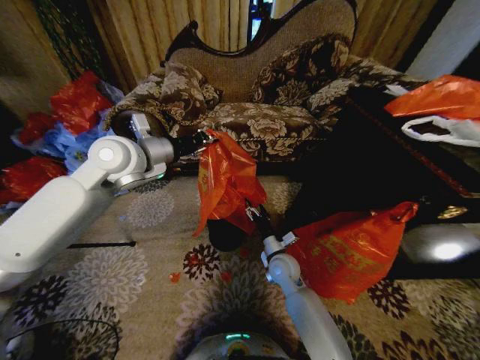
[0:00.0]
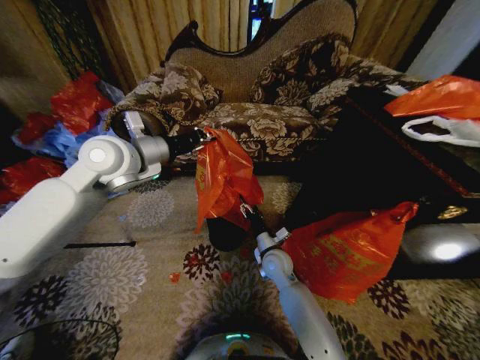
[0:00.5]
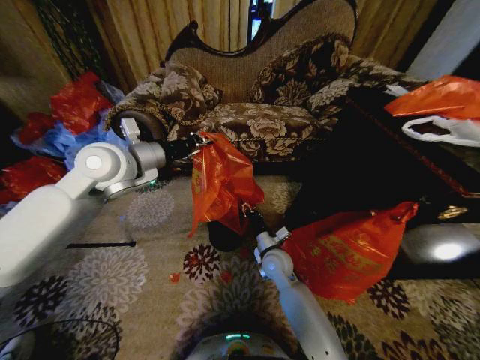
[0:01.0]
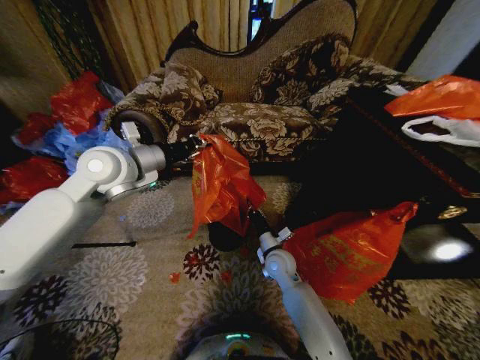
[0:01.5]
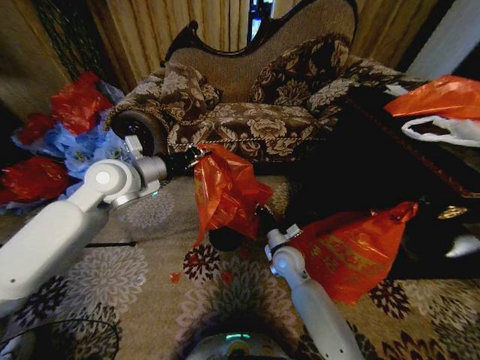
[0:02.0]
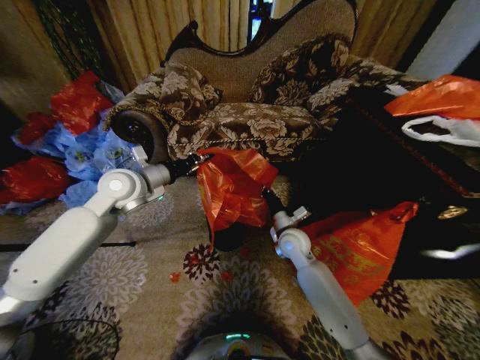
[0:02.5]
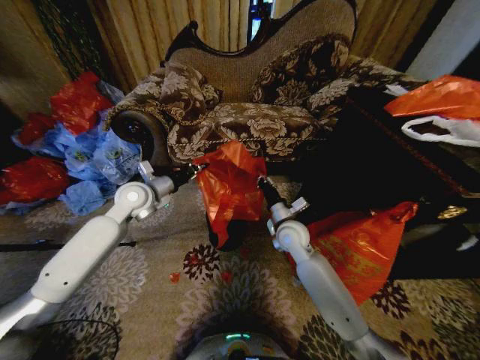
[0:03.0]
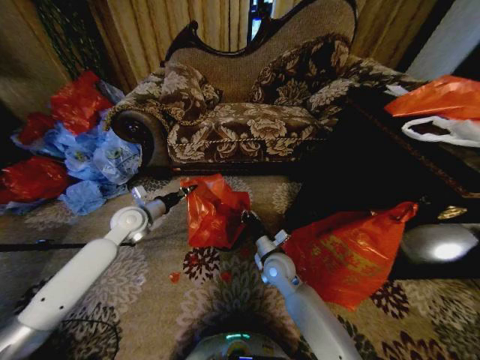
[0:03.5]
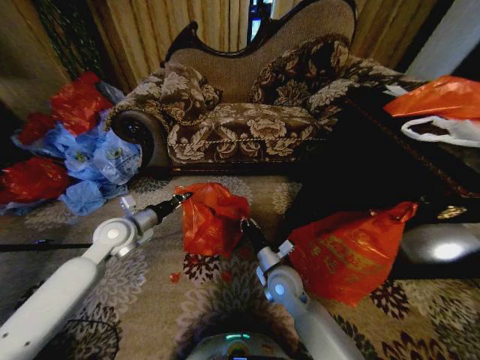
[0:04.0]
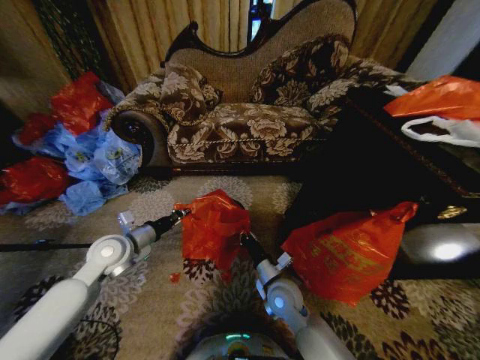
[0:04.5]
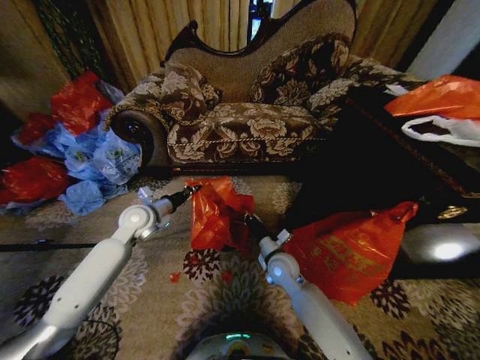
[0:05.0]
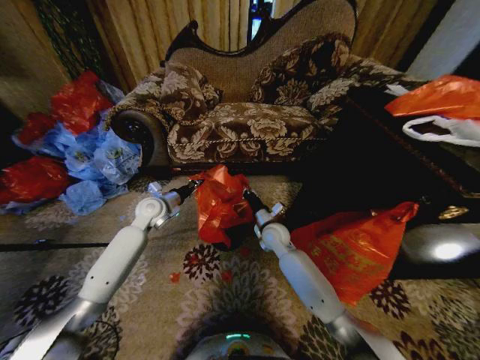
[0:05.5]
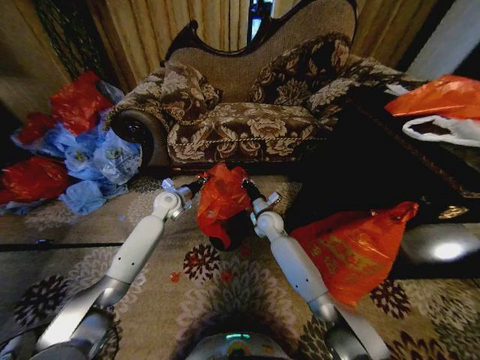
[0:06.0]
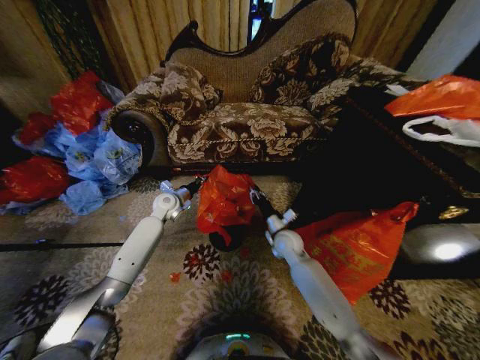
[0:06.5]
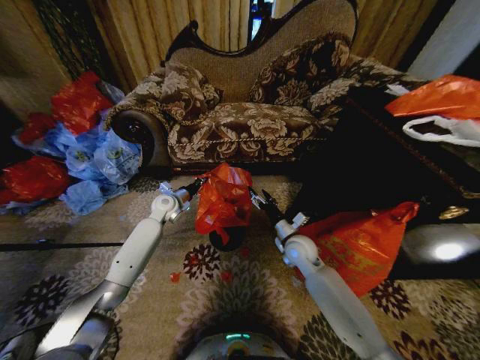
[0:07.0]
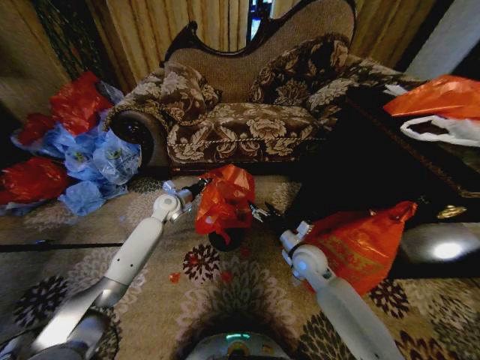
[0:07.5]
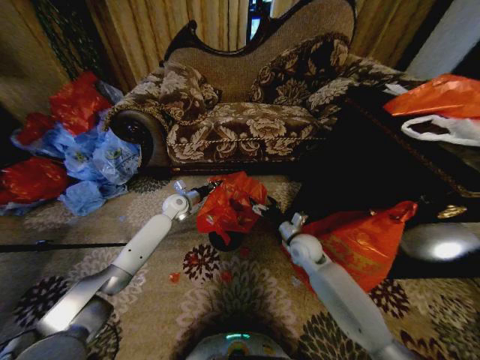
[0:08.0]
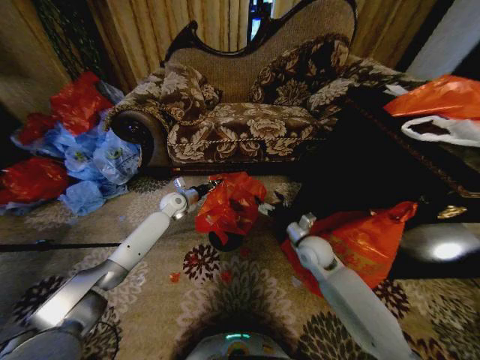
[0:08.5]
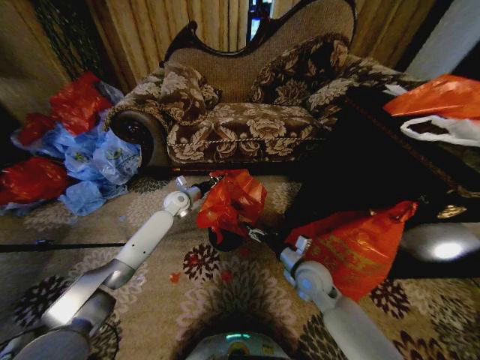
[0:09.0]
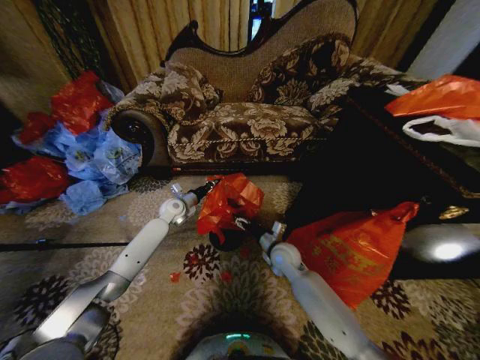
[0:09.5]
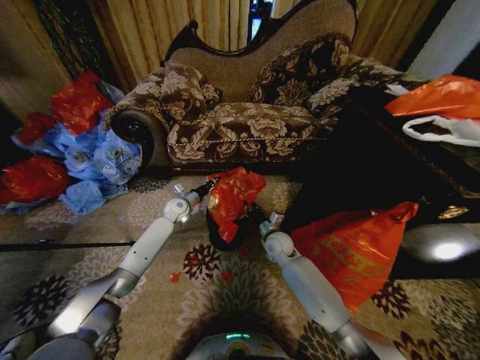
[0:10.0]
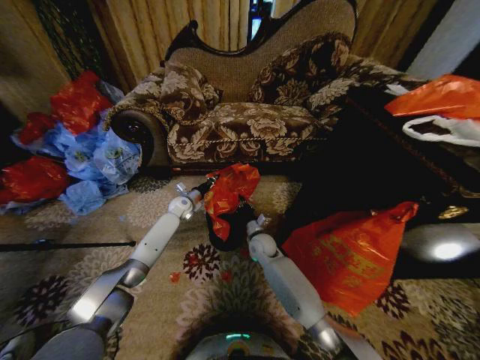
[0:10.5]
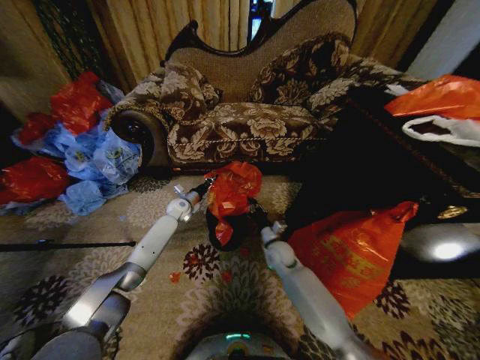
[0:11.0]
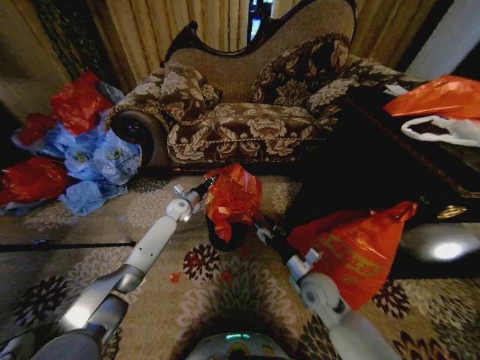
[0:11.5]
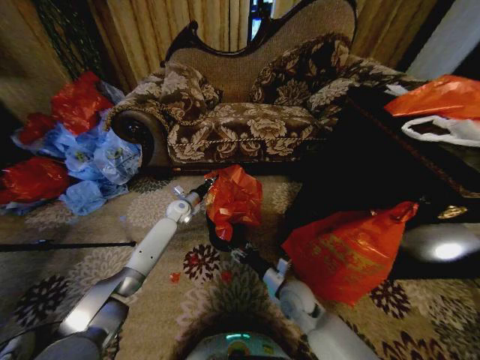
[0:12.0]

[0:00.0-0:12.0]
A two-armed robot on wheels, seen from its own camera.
Task of the whole recording: Place a garbage bag over the trash bin.
0:00.0 to 0:02.0: The left gripper shifts by some 5 cm. The right gripper closes.
0:02.0 to 0:04.0: The right gripper travels backward by roughly 5 cm; the left gripper moves downward, roughly 15 cm.
0:04.0 to 0:06.0: The grippers both shift forward by about 20 cm.
0:06.0 to 0:08.0: The right gripper goes some 15 cm to the right and backward, and opens up.
0:08.0 to 0:10.0: The right gripper is displaced to the left by approximately 5 cm, travels backward and back again, some 10 cm each way, and closes its fingers.
0:10.0 to 0:12.0: The right gripper is displaced backward by roughly 15 cm.

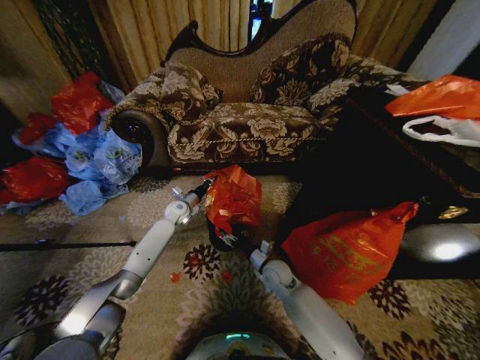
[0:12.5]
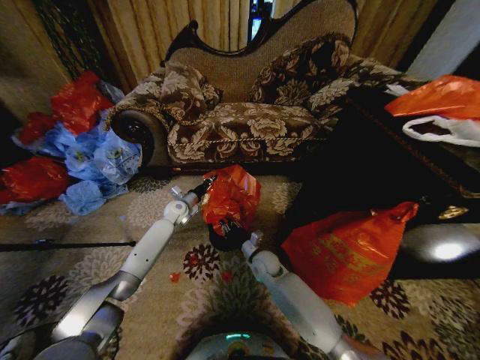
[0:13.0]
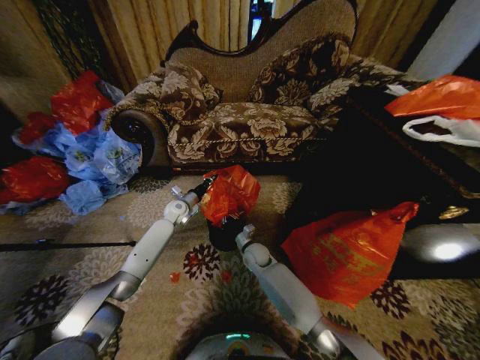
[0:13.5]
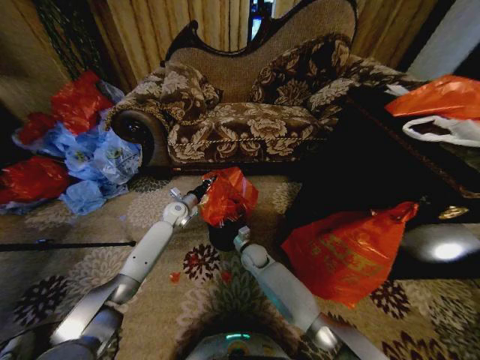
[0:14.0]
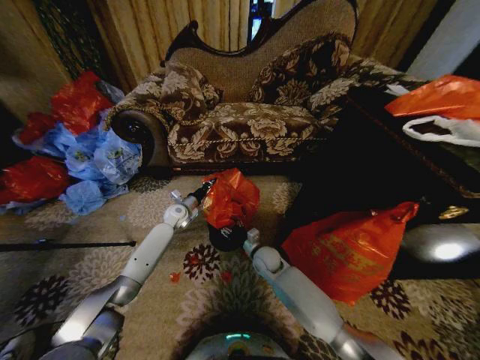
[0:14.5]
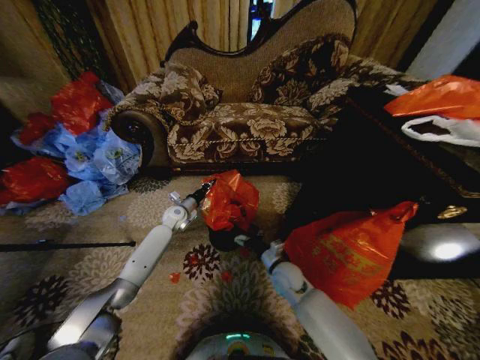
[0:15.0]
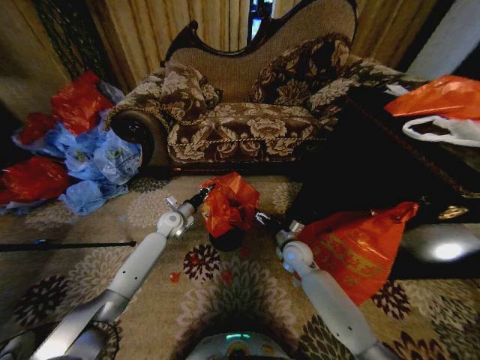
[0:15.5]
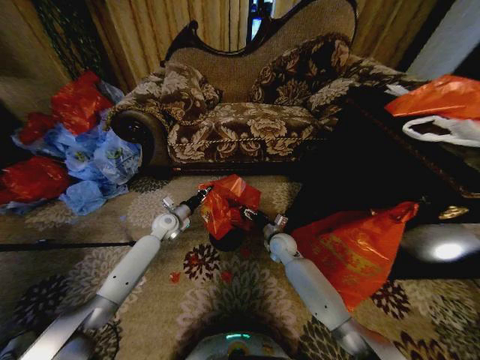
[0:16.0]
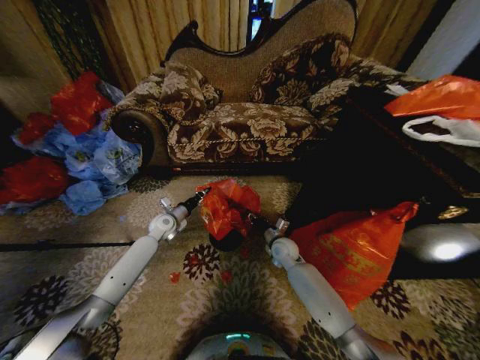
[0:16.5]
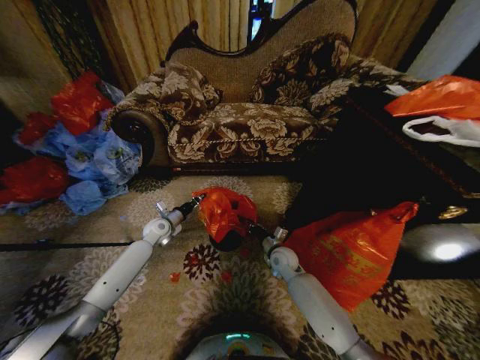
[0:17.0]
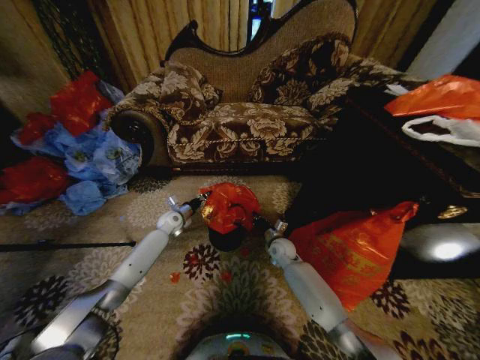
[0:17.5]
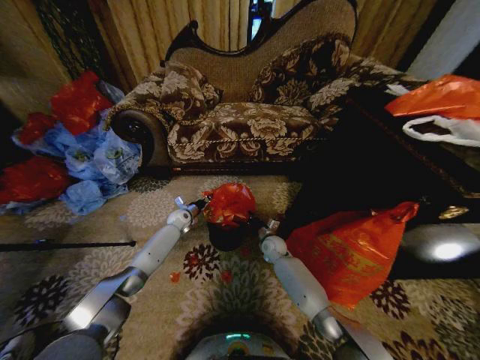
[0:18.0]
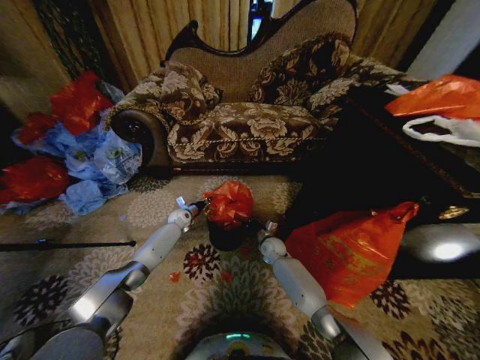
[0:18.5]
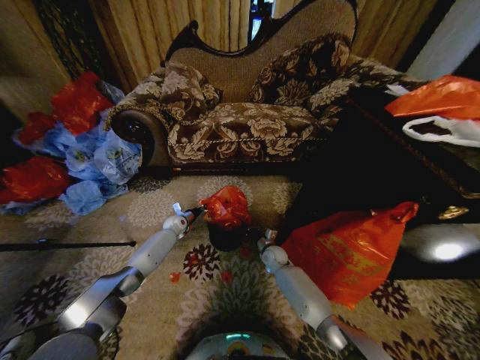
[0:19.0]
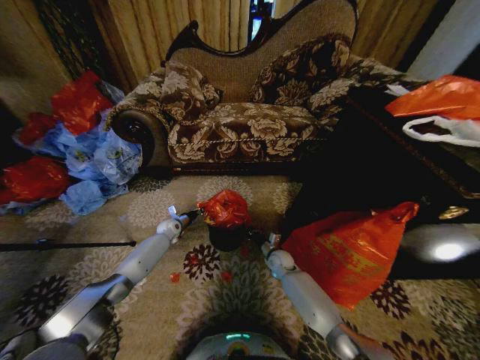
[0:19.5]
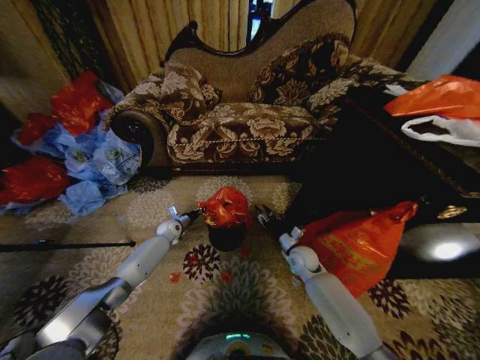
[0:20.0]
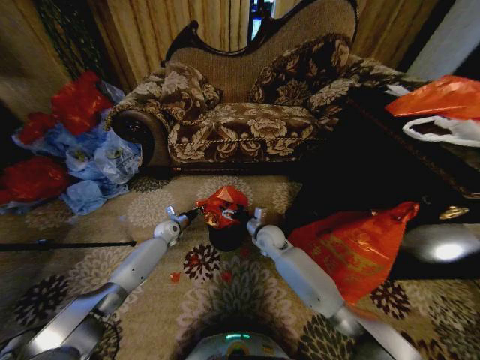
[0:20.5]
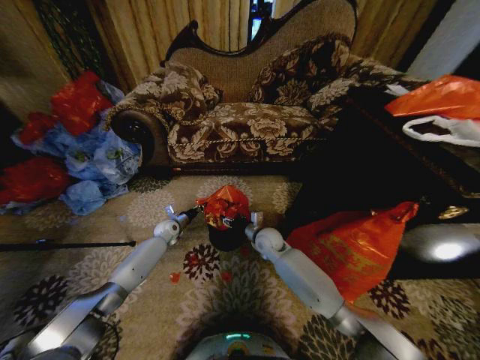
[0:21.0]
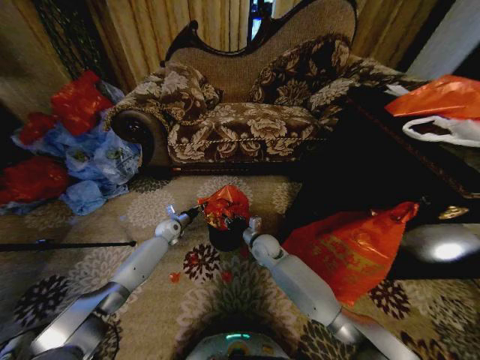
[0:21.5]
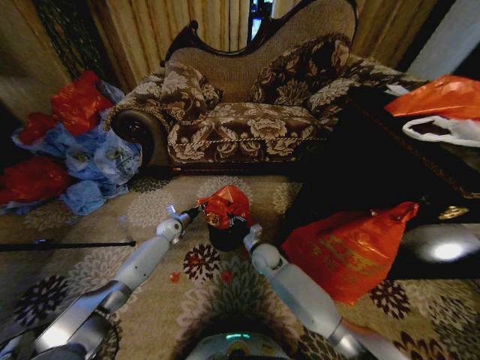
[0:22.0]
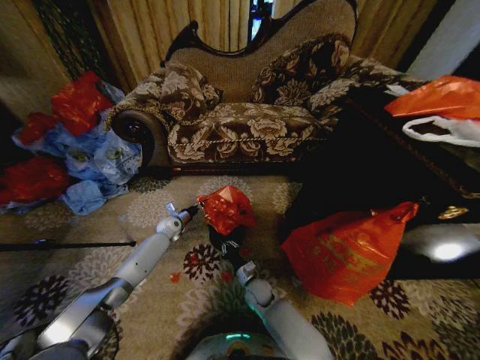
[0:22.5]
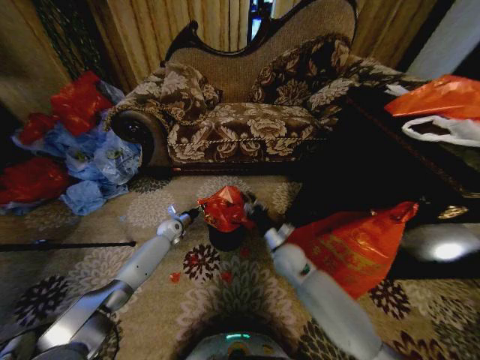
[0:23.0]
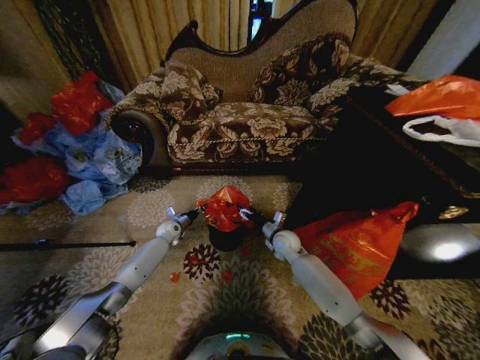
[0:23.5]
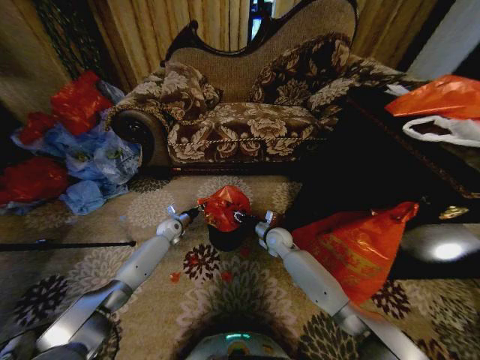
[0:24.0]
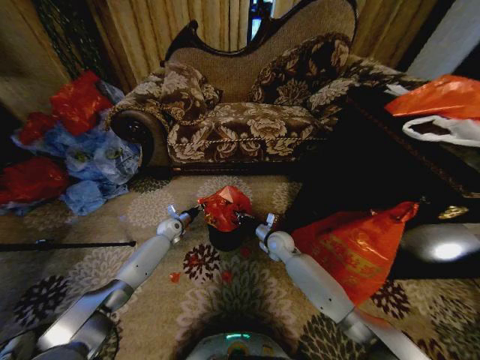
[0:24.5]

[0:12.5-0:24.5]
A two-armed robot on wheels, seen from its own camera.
Task of the whole recording: Place a garbage bag over the trash bin.
0:12.5 to 0:14.5: The right gripper closes, then opens again.
0:14.5 to 0:16.5: The left gripper heads backward, covering about 5 cm. The right gripper moves to the right, roughly 5 cm, travels backward and back again, some 5 cm each way, and opens and closes again.
0:16.5 to 0:18.5: The right gripper shifts some 5 cm downward, and closes its fingers. Meanwhile the left gripper shifts about 10 cm forward and downward.
0:18.5 to 0:20.5: The left gripper goes about 5 cm backward; the right gripper goes roughly 10 cm upward, and opens its fingers.
0:20.5 to 0:22.5: The right gripper is displaced downward and backward by approximately 20 cm, and closes.
0:22.5 to 0:24.5: The right gripper moves upward, forward and to the right, roughly 20 cm, and opens, then closes again.

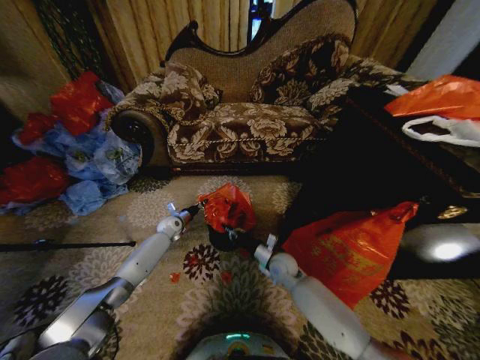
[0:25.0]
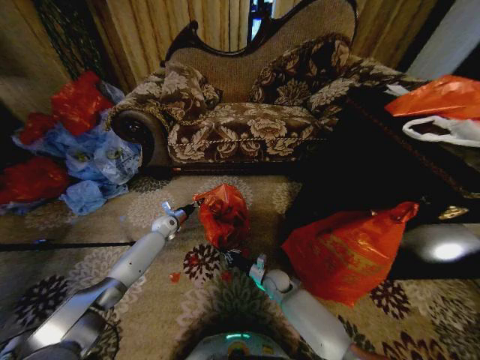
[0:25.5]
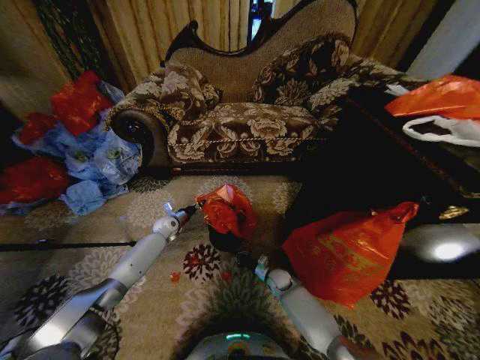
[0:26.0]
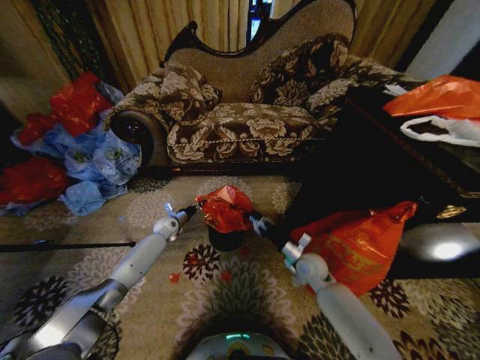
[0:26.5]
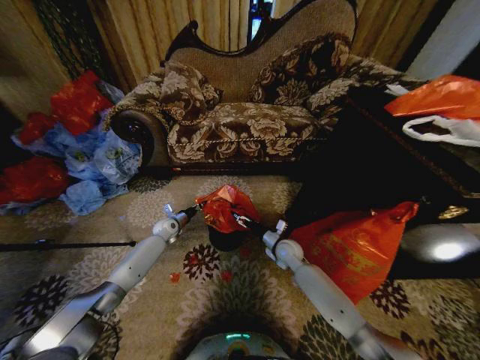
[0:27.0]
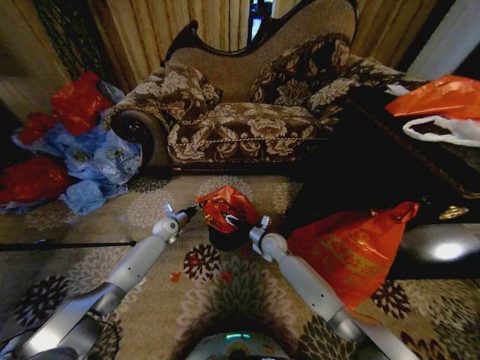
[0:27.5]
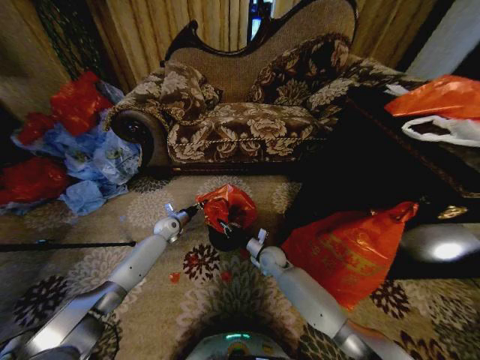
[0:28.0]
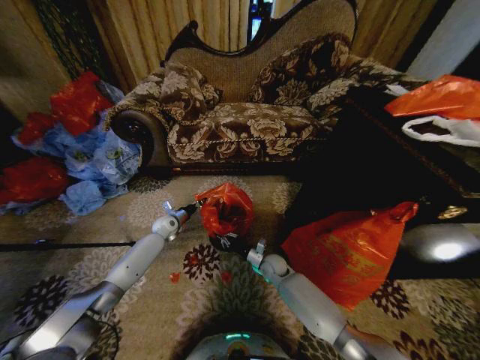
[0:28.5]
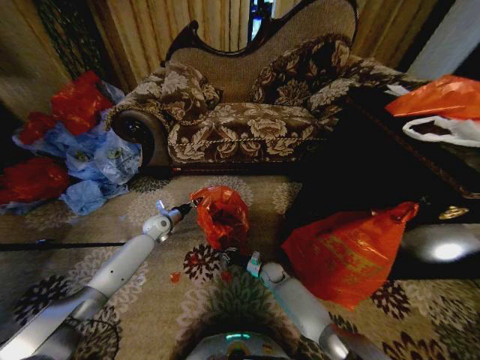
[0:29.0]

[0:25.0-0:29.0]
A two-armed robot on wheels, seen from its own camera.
Task of the whole recording: Place a garbage bag over the trash bin.
0:25.0 to 0:27.0: The right gripper travels downward and back again, about 15 cm each way, and opens its fingers.
0:27.0 to 0:29.0: The right gripper moves downward, approximately 15 cm, and closes its fingers.
